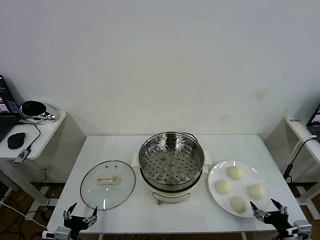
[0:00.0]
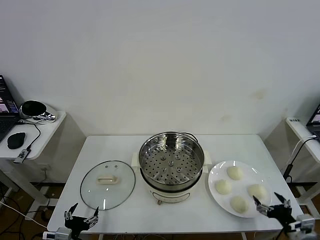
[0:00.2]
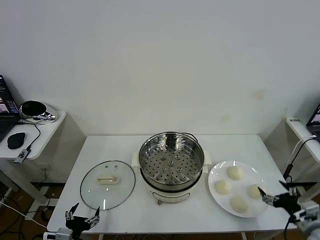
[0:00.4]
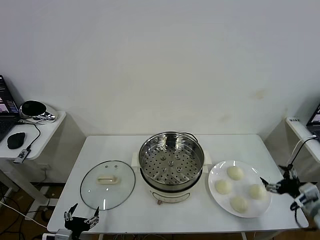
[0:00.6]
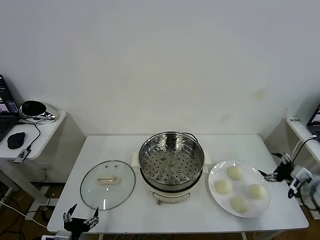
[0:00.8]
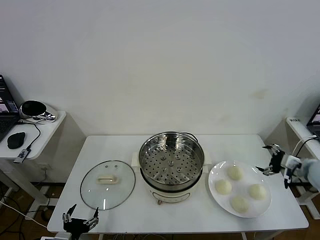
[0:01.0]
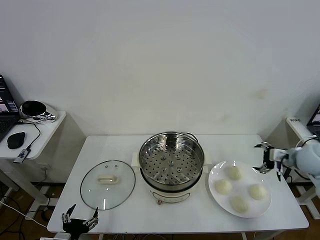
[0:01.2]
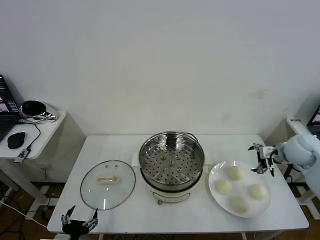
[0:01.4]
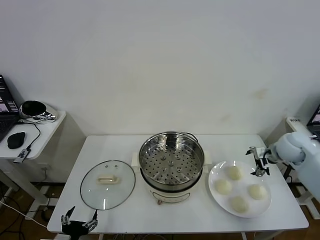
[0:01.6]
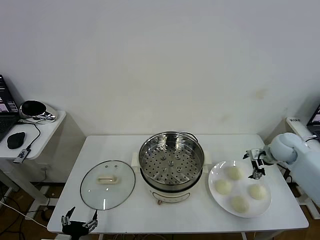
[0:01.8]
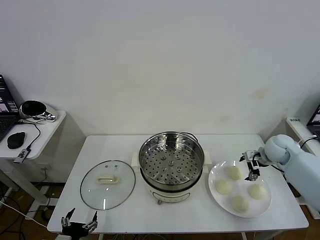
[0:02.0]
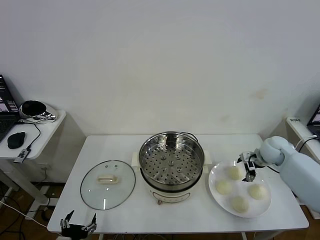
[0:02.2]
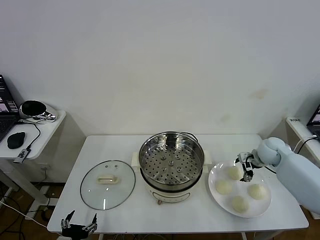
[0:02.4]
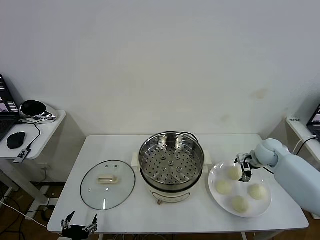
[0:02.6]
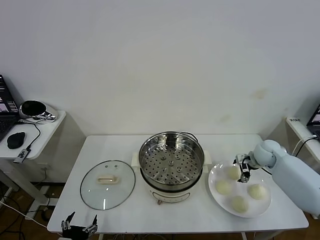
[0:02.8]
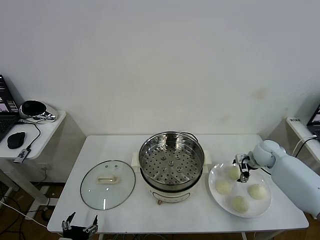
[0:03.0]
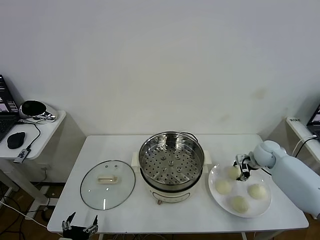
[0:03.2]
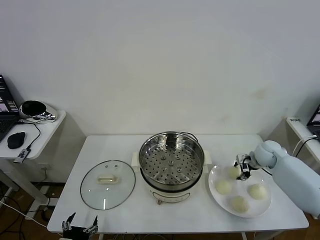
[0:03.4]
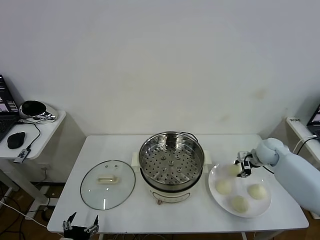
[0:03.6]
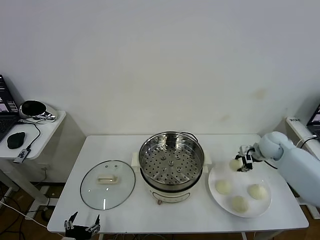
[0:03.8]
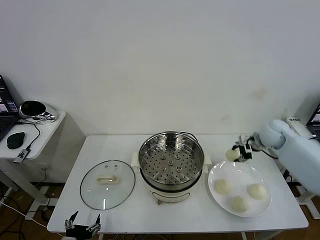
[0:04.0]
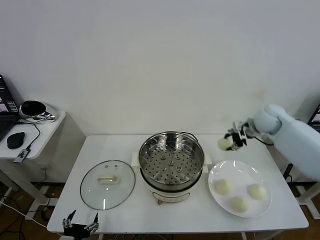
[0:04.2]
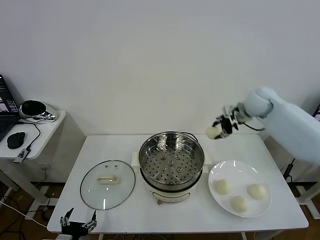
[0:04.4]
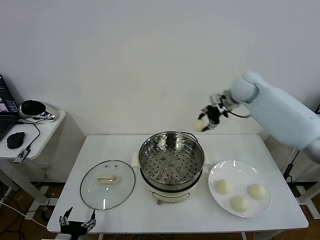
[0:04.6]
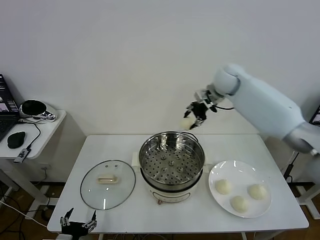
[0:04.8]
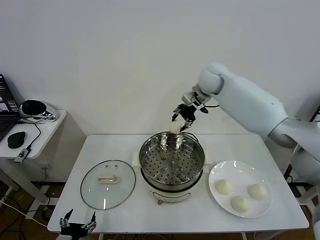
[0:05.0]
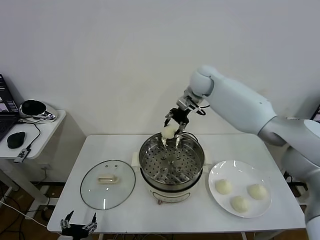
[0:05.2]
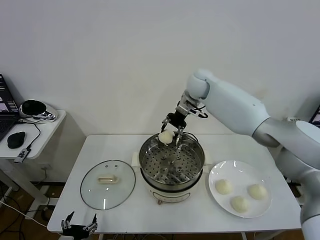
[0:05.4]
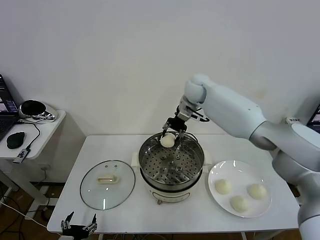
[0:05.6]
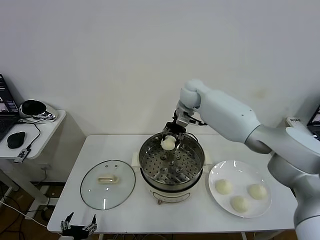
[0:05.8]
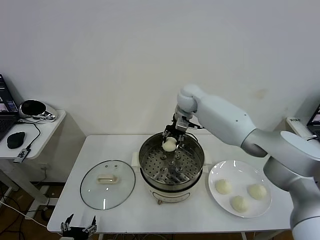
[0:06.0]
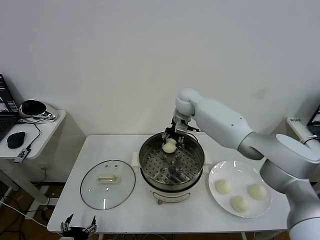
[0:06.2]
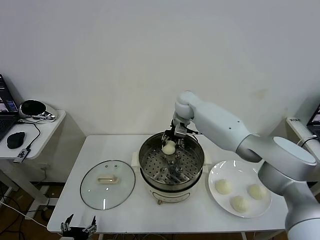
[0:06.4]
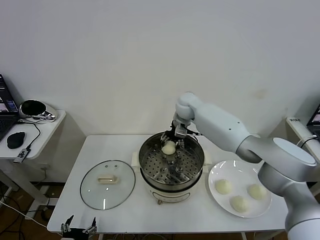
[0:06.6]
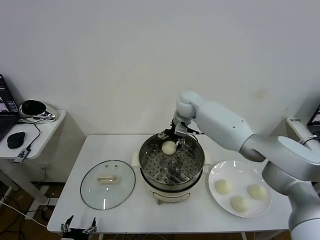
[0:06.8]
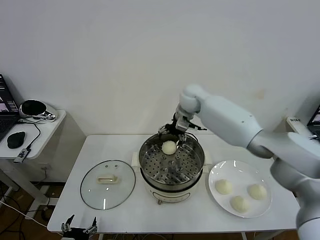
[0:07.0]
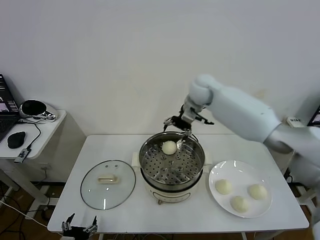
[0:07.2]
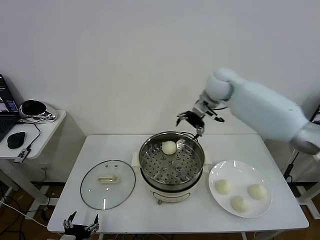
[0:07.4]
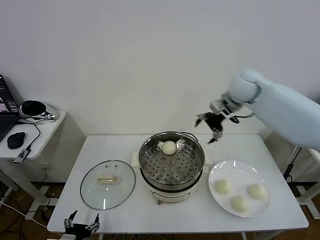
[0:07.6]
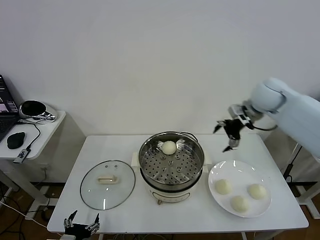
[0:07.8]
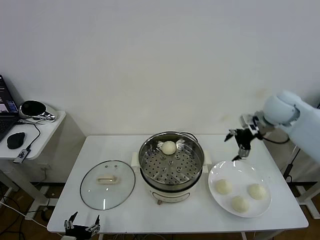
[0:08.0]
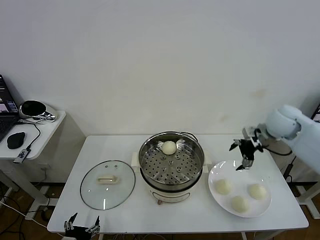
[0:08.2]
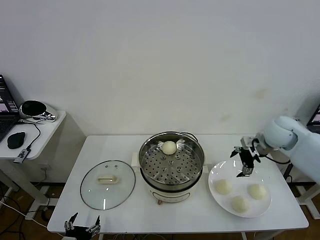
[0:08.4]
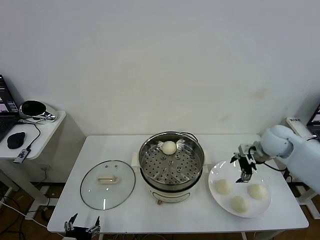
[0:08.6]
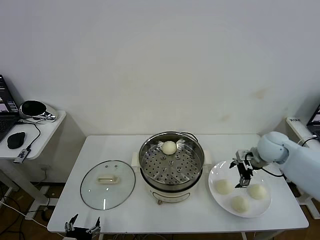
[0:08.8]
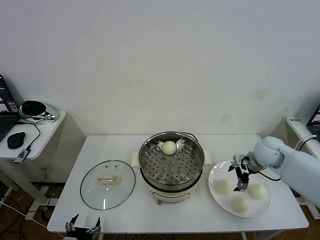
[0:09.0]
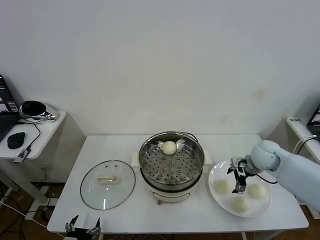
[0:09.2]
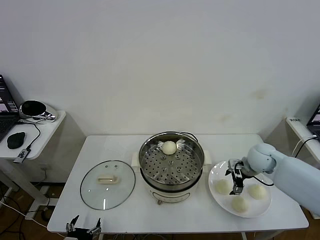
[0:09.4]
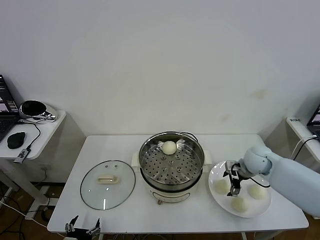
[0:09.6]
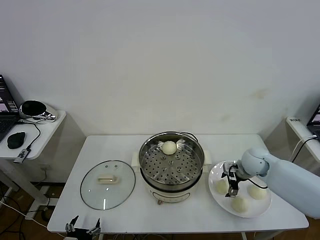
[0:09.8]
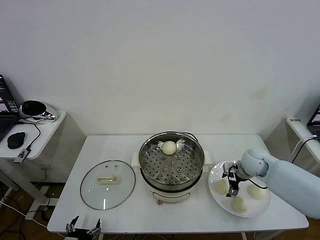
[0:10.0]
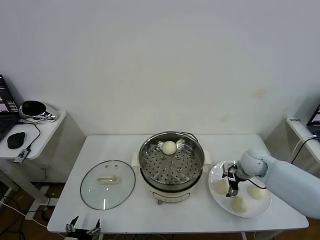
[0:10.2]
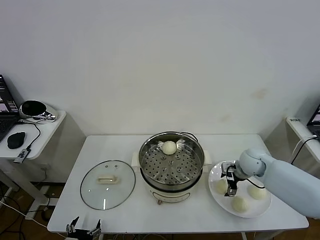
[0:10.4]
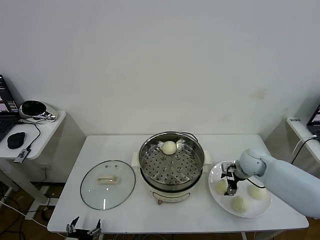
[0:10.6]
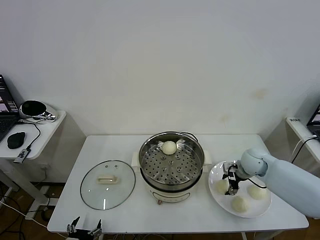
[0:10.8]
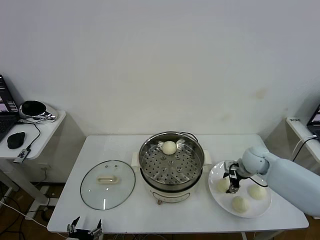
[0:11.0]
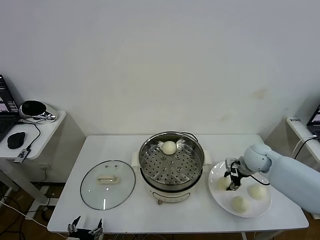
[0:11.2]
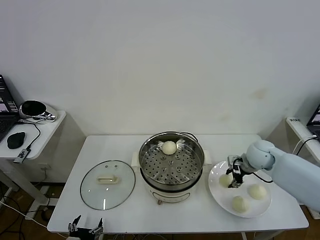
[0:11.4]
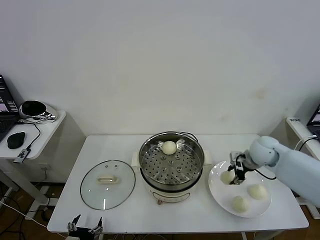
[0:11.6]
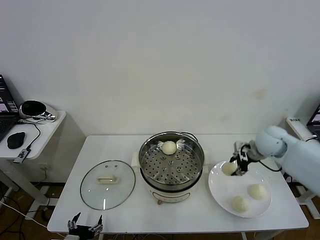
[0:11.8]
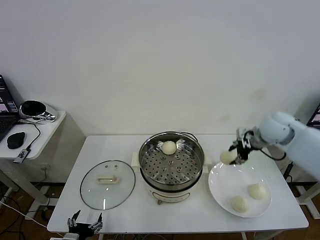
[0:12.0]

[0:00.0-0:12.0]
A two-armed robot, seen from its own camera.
Task of the whole recording: take steamed baozi put them in steamer then cover it.
Step, 0.0 to 3.2 s: Grasp the baozi in the plate with right gripper.
Step, 3.4 to 7.0 s: Place the baozi on the steamer with right gripper.
Step, 7.2 to 10.8 s: Grasp the baozi in the plate with right gripper.
1.6 to 3.0 s: The right gripper travels downward by about 10 cm.
3.0 to 4.4 s: The right gripper heads upward, to the left and forward, covering approximately 25 cm, and closes.
4.4 to 6.0 s: The right gripper shifts some 20 cm to the left.
6.0 to 7.6 s: The right gripper heads to the right and upward, covering approximately 20 cm, and opens its fingers.
7.6 to 9.0 s: The right gripper is displaced downward and backward by some 20 cm.
9.0 to 10.4 s: The right gripper shifts some 5 cm downward.
10.4 to 12.0 s: The right gripper shifts approximately 20 cm upward, and closes its fingers.

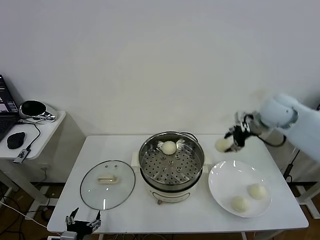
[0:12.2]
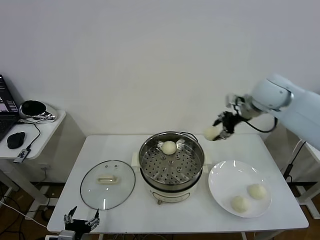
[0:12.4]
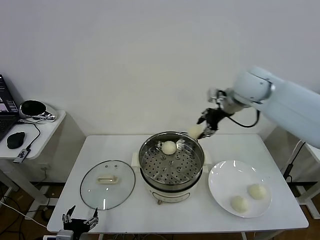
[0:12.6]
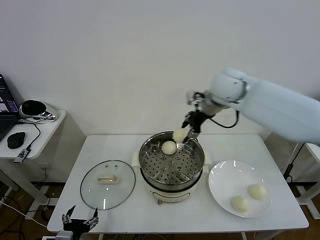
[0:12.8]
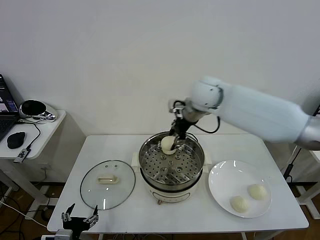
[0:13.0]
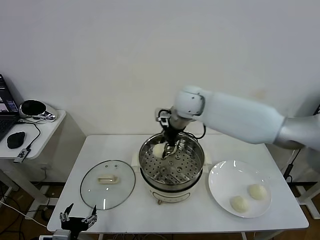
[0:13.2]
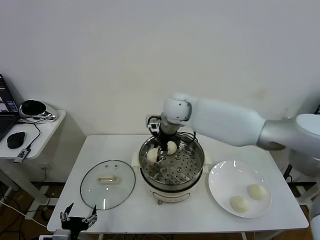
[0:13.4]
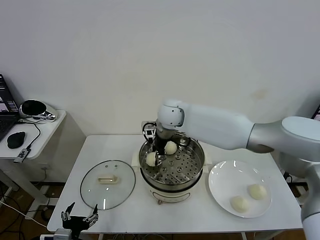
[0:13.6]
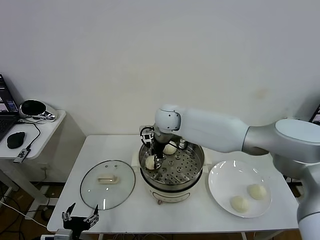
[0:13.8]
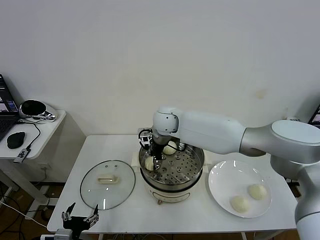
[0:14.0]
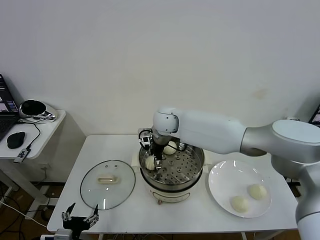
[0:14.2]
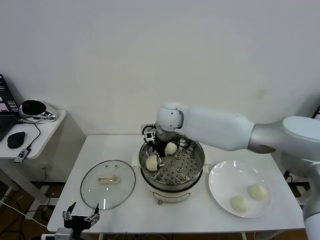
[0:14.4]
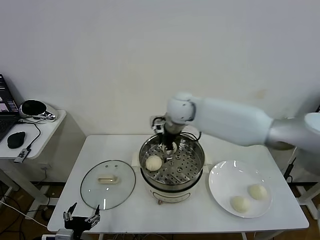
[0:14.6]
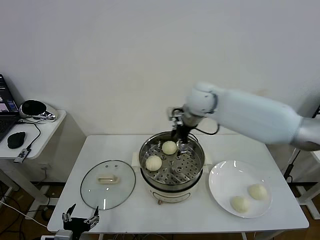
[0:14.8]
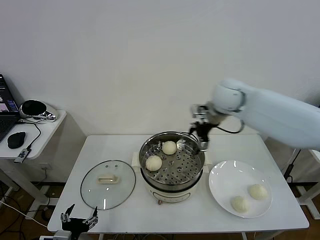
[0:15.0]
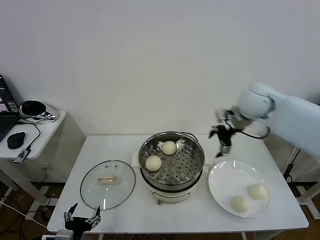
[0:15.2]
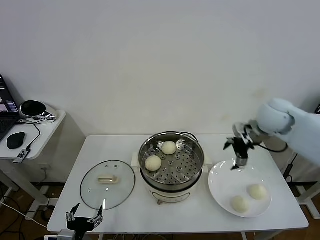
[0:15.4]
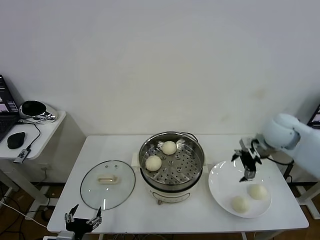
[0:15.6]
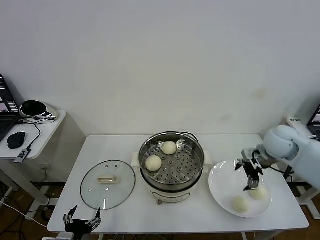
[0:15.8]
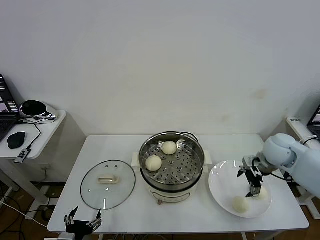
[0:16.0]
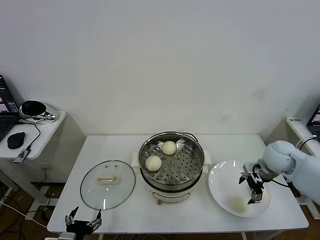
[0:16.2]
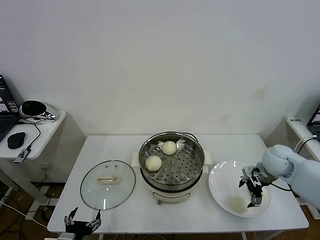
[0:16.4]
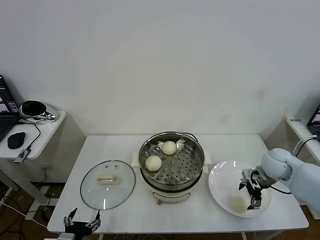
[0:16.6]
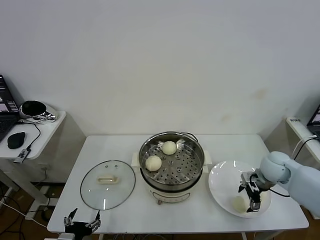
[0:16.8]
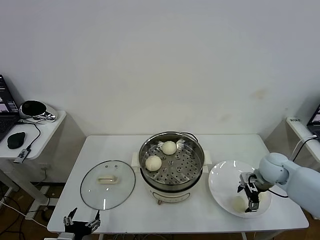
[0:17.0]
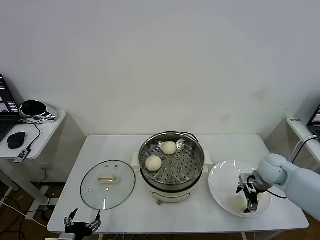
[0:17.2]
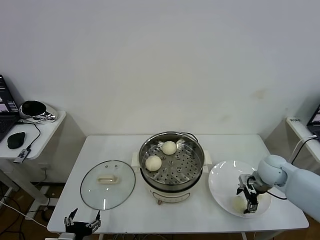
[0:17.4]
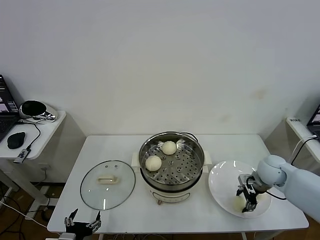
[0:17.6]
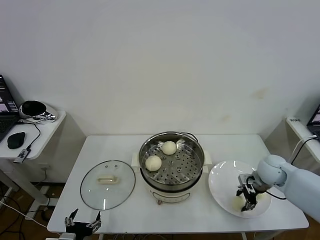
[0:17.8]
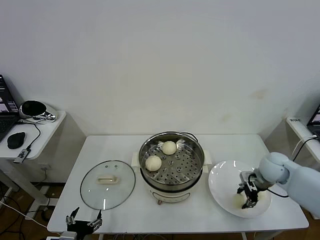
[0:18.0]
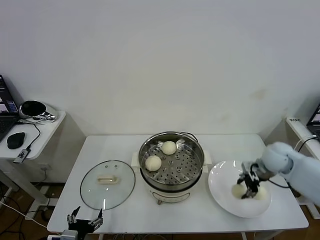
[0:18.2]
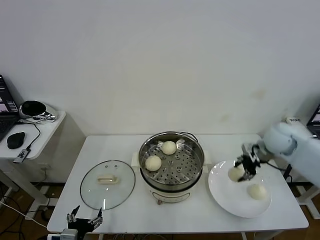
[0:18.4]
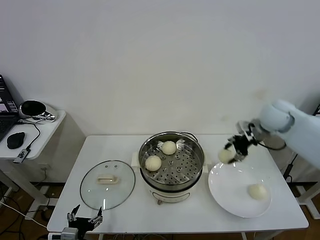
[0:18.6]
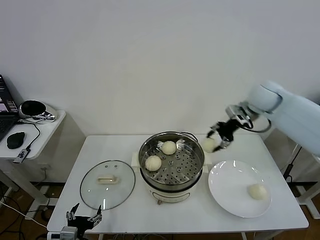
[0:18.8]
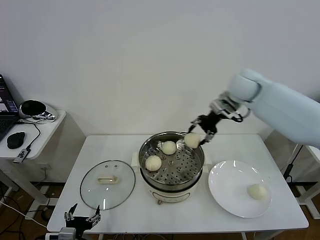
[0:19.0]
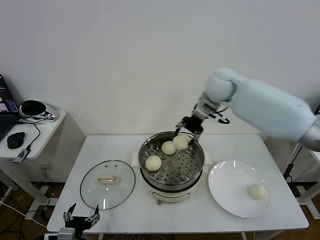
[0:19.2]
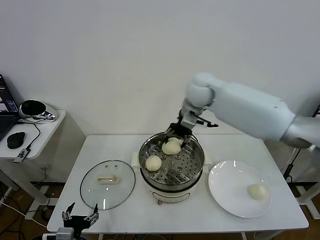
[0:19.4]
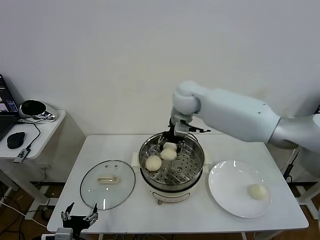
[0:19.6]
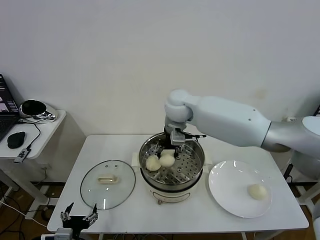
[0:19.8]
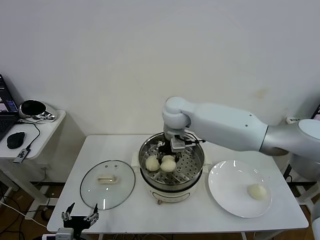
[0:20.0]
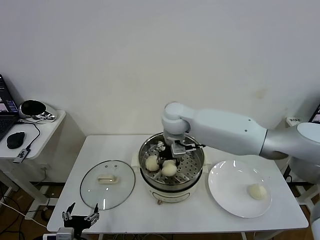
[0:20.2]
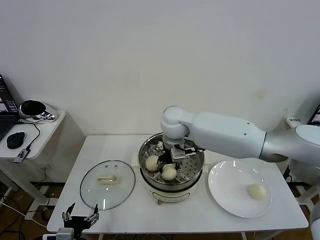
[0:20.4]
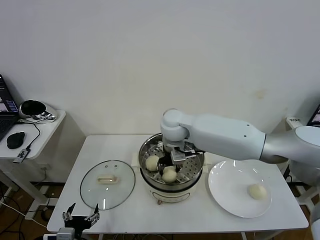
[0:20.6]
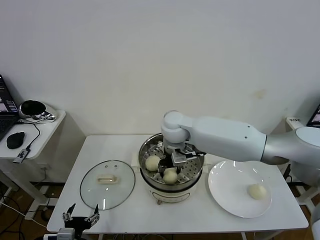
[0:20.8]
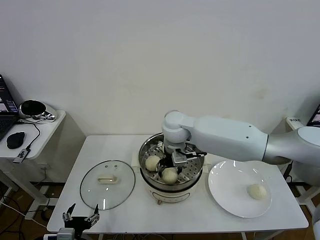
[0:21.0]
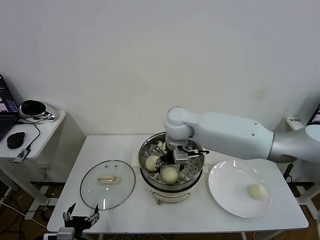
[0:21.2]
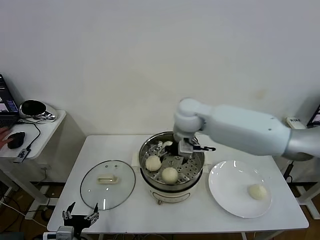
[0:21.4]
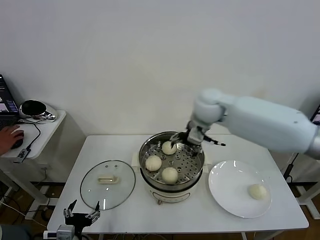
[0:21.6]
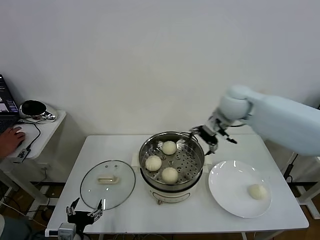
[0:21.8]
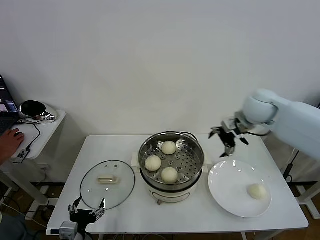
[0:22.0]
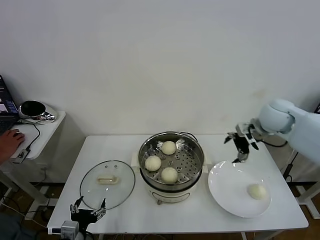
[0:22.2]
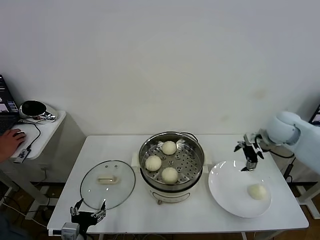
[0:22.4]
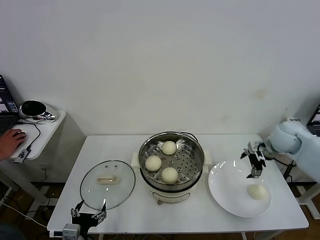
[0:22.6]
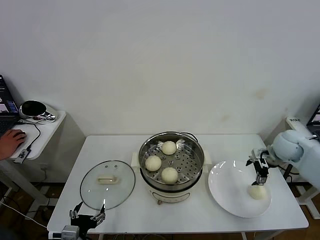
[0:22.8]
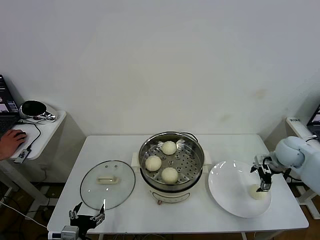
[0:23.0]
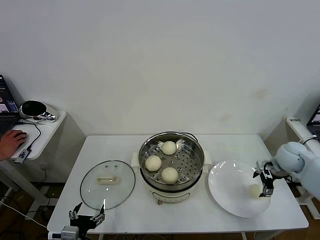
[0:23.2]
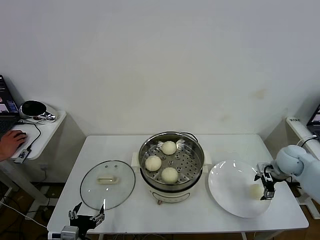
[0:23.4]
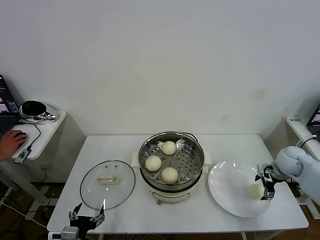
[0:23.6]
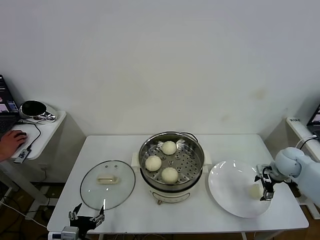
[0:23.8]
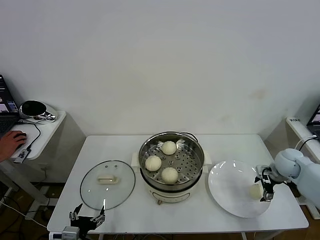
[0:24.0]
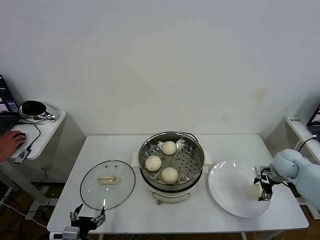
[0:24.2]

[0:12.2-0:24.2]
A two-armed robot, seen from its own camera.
Task of the whole recording: take steamed baozi put them in steamer then cover it.
Step, 12.2 to 14.4 s: Place the baozi on the steamer with right gripper.
Step, 14.8 to 17.8 s: Grasp the baozi in the plate with right gripper.
Step, 18.0 to 21.2 s: Place the baozi on the steamer with right gripper.
12.2 to 13.8 s: The right gripper shifts about 30 cm to the left.
13.8 to 15.2 s: The right gripper heads to the right, covering about 30 cm, and opens up.
15.2 to 16.6 s: The right gripper moves downward, to the right and backward, about 20 cm.
16.6 to 18.2 s: The right gripper closes its fingers.
18.2 to 19.8 s: The right gripper heads to the left, covering approximately 35 cm.
19.8 to 21.2 s: The right gripper opens up.
21.2 to 22.6 s: The right gripper travels to the right by roughly 35 cm.
22.6 to 24.2 s: The right gripper shifts some 10 cm downward.
